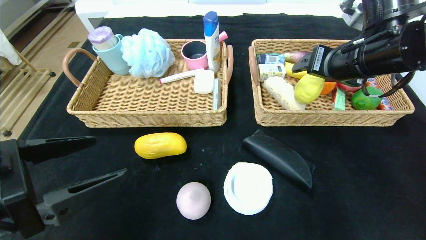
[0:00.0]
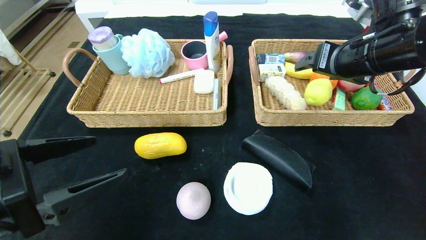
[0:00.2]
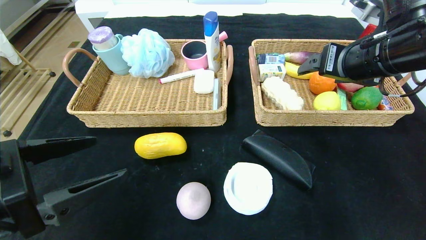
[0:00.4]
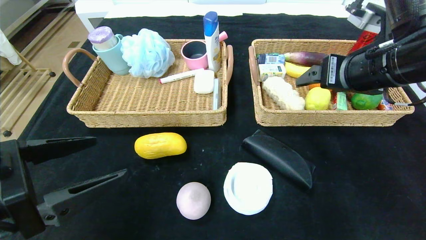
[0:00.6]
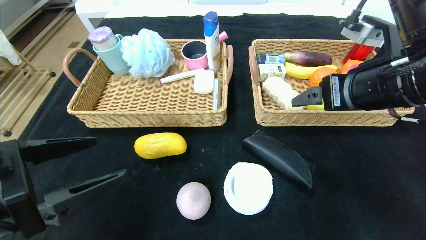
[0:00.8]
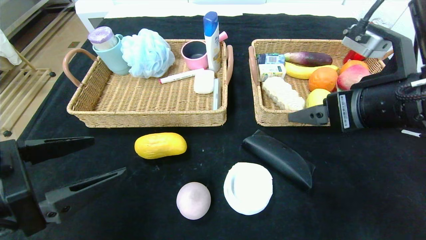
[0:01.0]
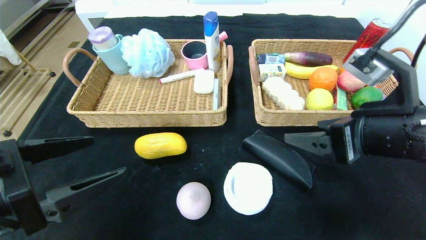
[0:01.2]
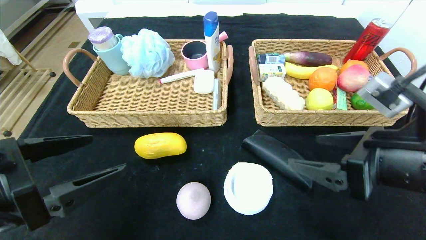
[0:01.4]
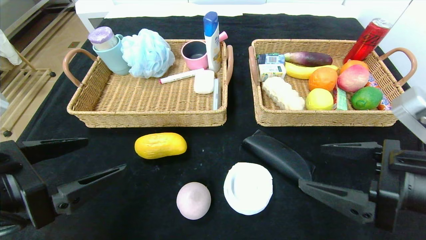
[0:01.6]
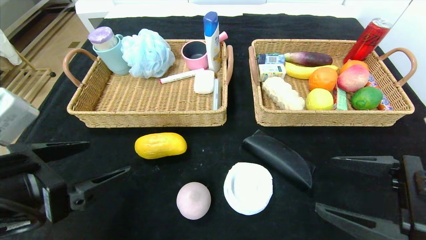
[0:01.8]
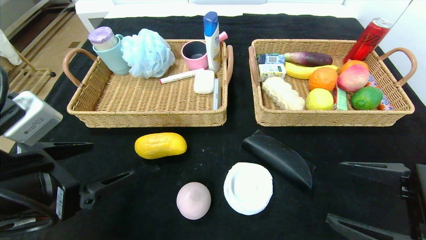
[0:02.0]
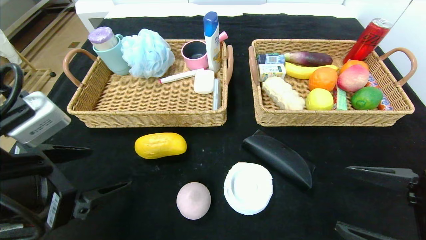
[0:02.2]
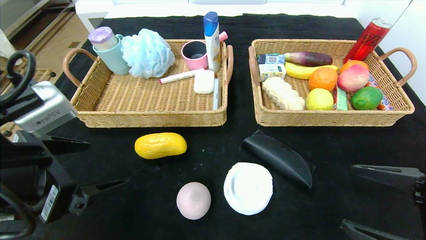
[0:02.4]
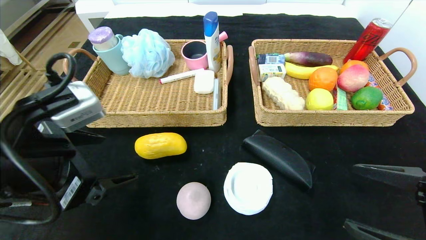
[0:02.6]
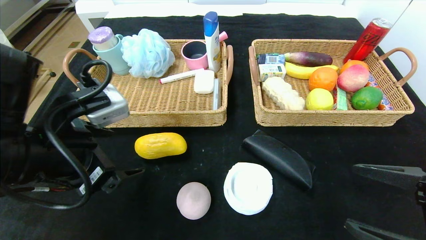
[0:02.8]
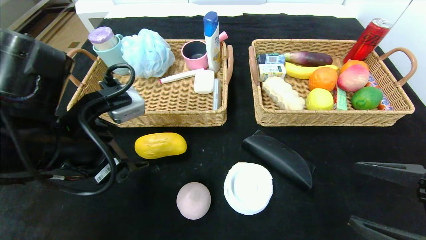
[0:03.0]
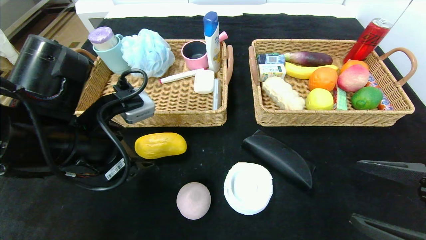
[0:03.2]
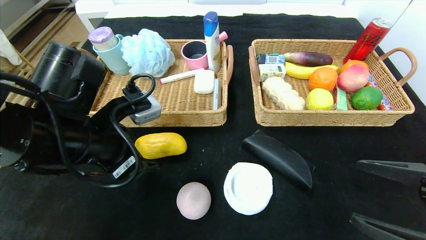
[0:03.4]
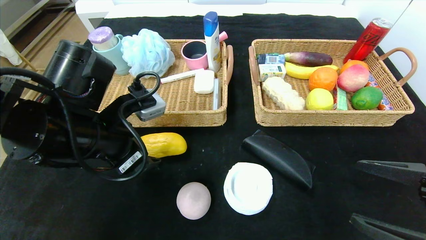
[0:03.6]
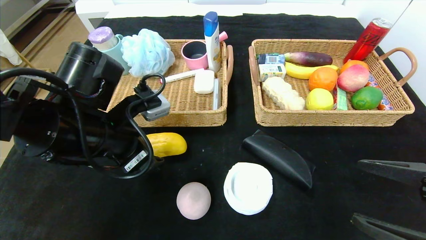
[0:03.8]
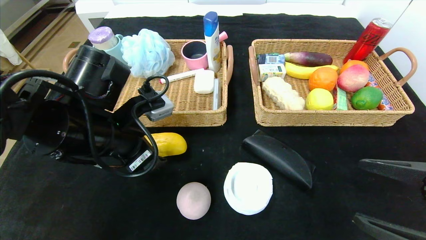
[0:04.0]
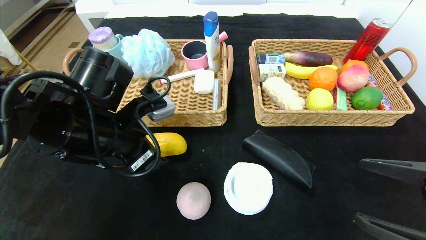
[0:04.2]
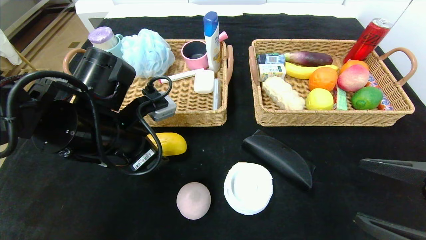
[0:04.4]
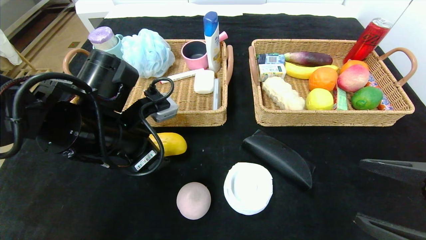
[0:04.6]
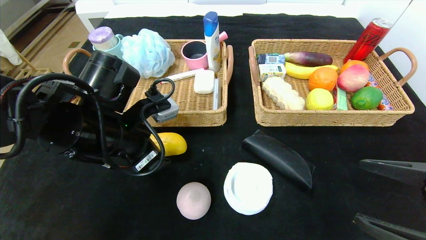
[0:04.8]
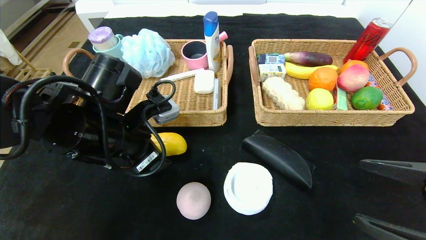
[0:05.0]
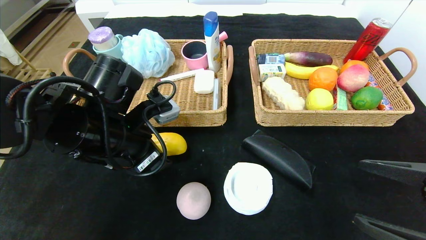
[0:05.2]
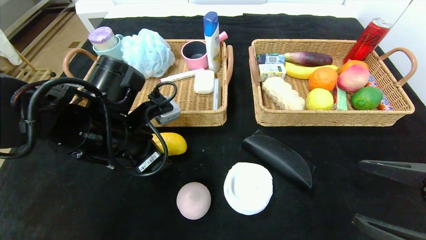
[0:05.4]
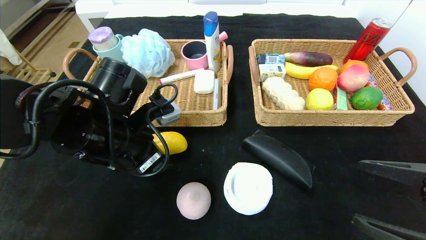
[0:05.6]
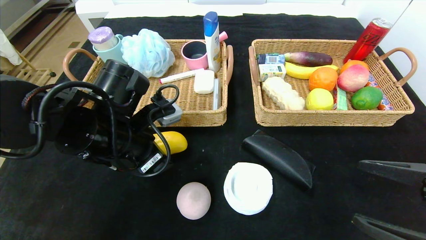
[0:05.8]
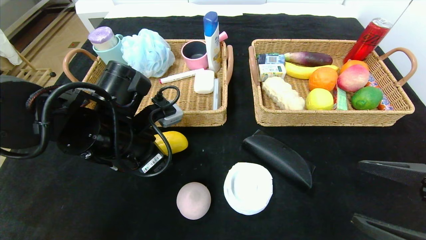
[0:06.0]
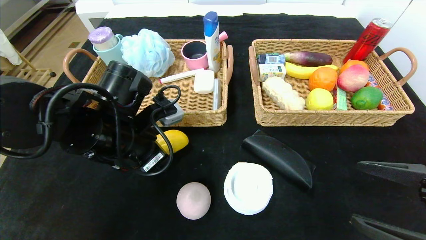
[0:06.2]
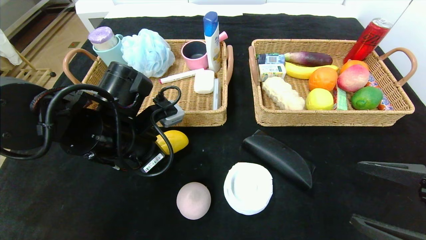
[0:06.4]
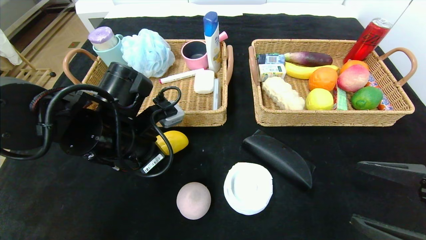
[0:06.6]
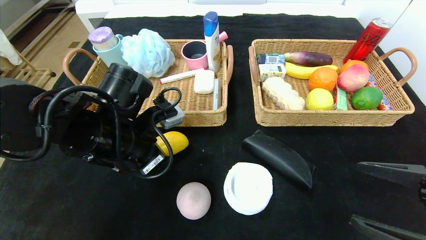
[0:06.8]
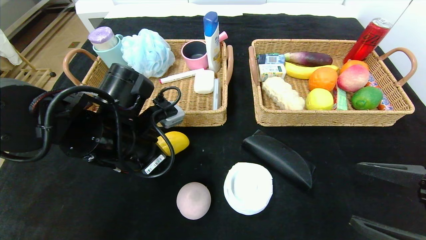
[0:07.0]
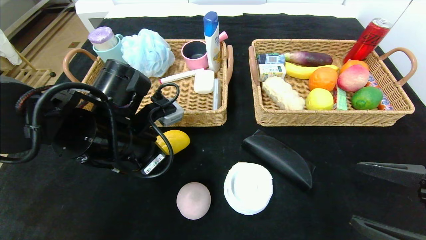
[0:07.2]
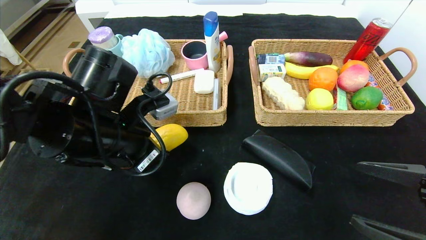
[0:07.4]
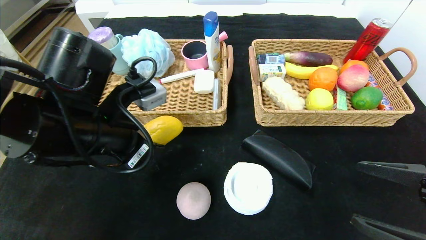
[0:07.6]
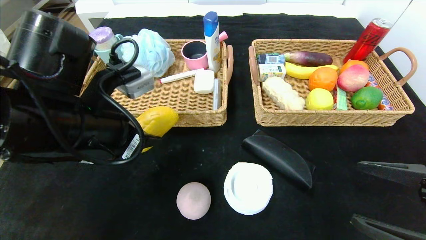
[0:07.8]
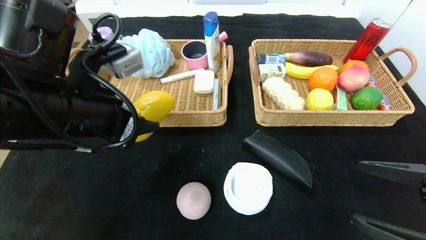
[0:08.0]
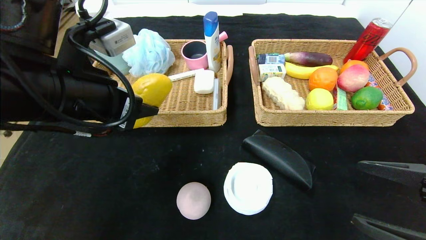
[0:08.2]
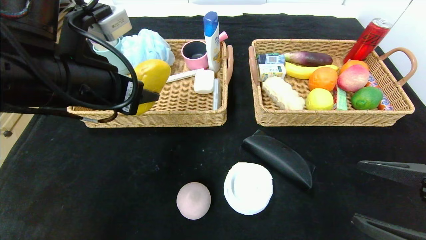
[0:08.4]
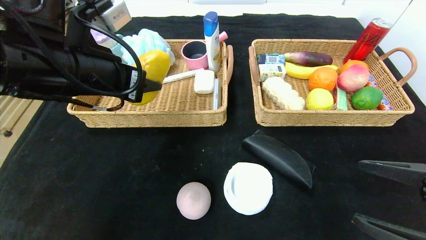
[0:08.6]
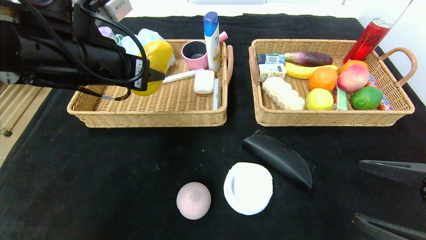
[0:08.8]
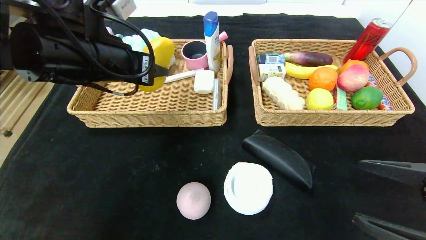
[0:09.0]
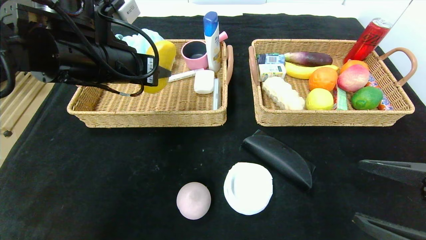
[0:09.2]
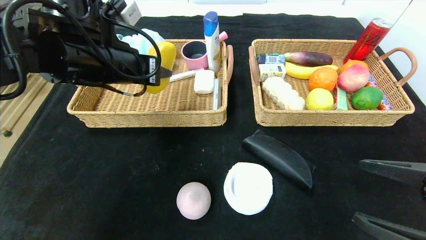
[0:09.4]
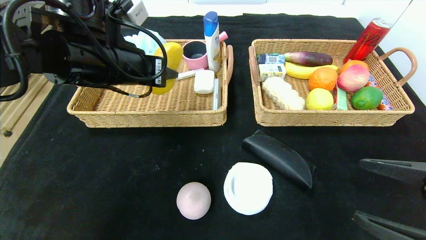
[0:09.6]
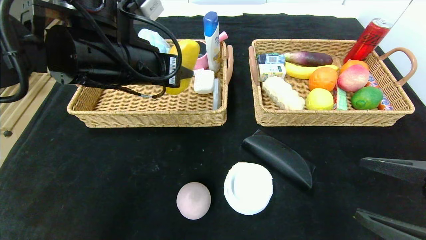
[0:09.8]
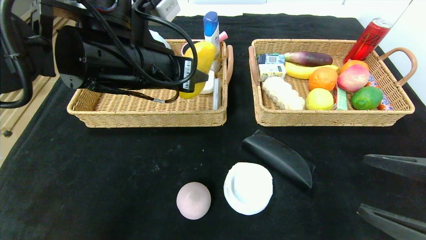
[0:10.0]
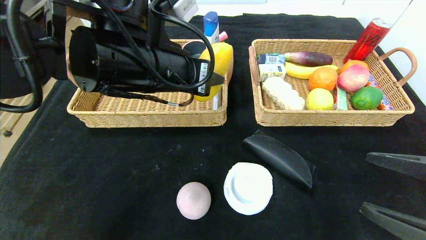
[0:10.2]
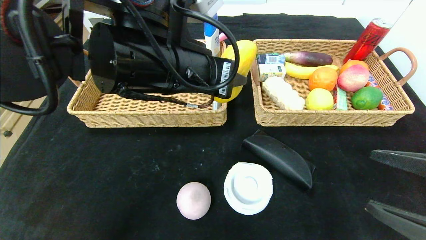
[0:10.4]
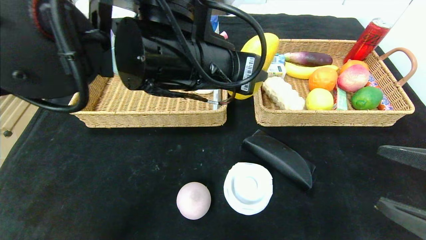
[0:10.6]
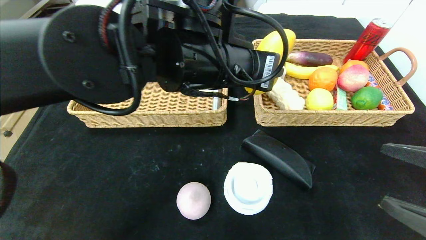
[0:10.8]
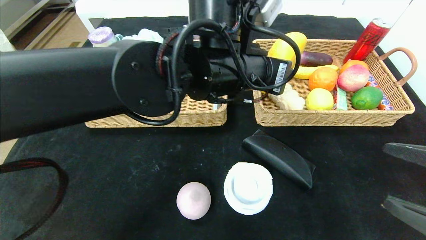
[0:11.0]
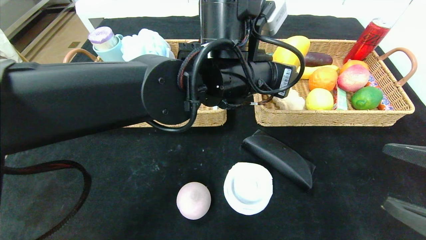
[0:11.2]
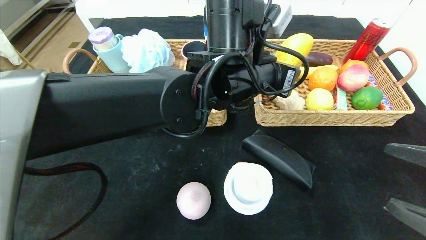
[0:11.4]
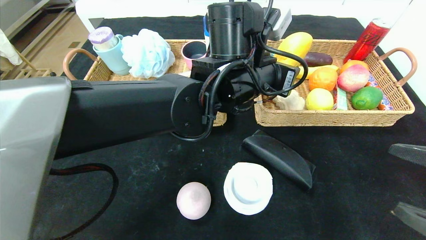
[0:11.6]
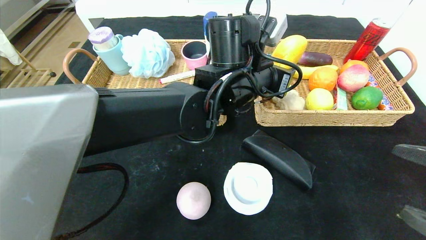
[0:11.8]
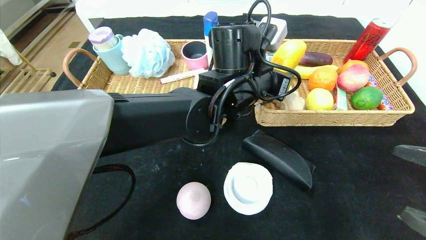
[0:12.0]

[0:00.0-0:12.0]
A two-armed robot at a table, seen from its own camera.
0:00.0 to 0:01.6: The right gripper shifts some 20 cm backward and downward.
0:01.6 to 0:03.0: The right gripper ends up approximately 5 cm from where it was. Meanwhile the left gripper moves forward and to the right, some 10 cm.
0:03.0 to 0:04.4: The left gripper changes place by approximately 5 cm.
0:04.4 to 0:06.0: The grippers stay close to where they were, moving slightly.
0:06.0 to 0:07.6: The left gripper shifts by some 5 cm, and closes.
0:07.6 to 0:09.0: The left gripper travels upward and forward by approximately 10 cm.
0:09.0 to 0:10.4: The left gripper shifts some 10 cm to the right.
0:10.4 to 0:12.0: The left gripper shifts roughly 15 cm to the right, forward and downward.

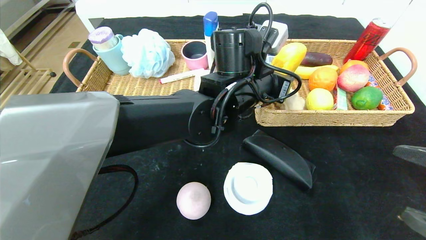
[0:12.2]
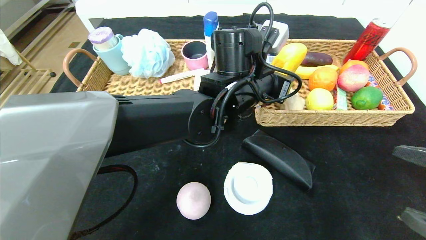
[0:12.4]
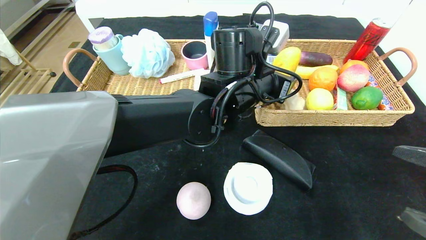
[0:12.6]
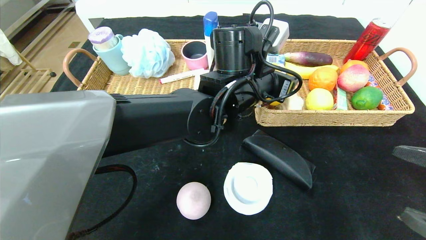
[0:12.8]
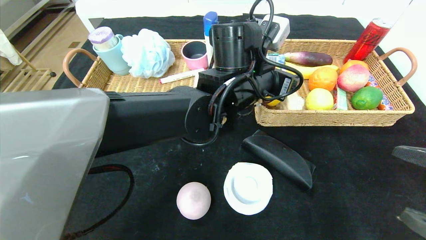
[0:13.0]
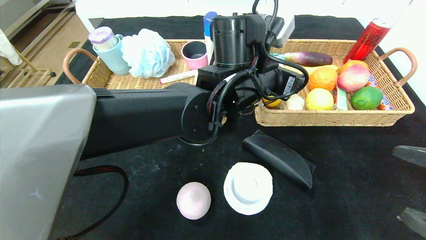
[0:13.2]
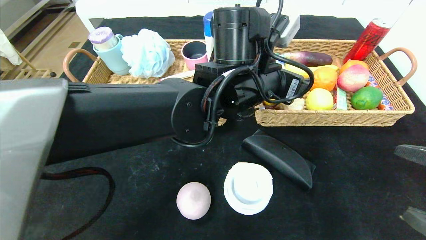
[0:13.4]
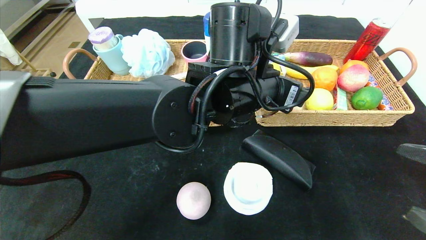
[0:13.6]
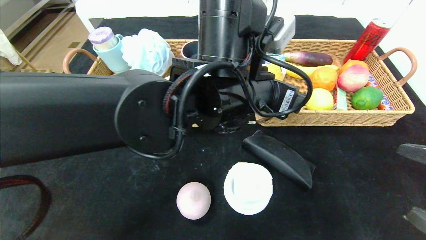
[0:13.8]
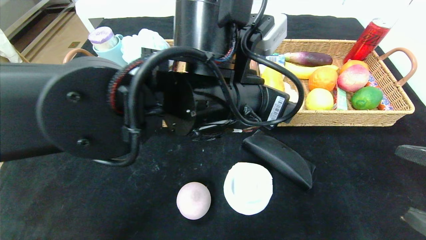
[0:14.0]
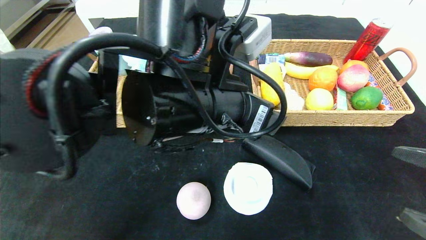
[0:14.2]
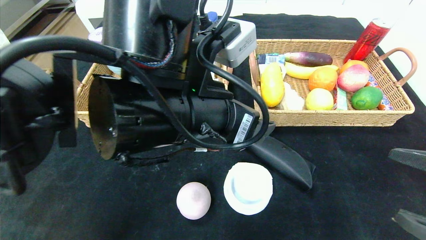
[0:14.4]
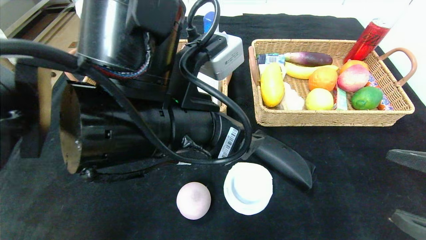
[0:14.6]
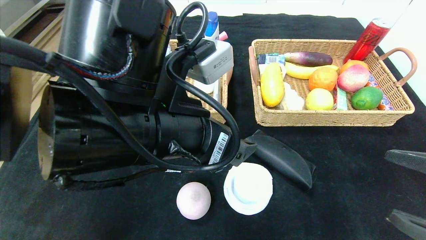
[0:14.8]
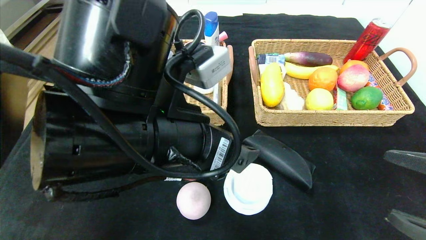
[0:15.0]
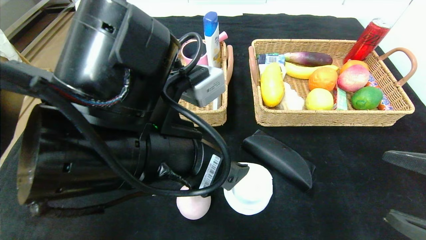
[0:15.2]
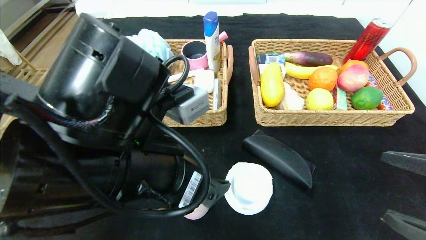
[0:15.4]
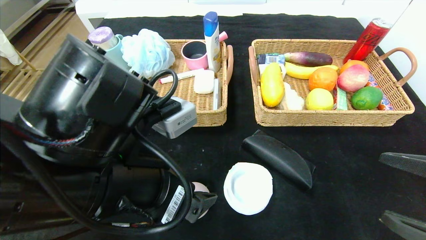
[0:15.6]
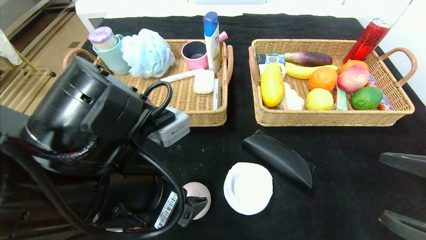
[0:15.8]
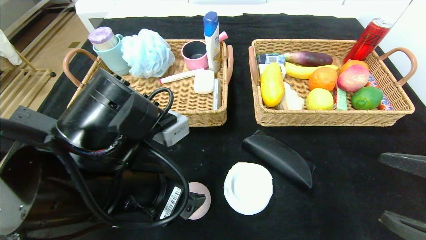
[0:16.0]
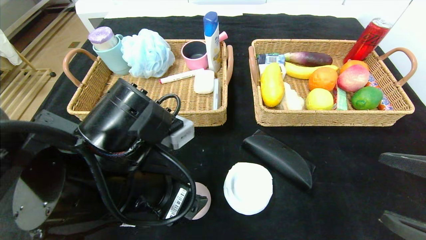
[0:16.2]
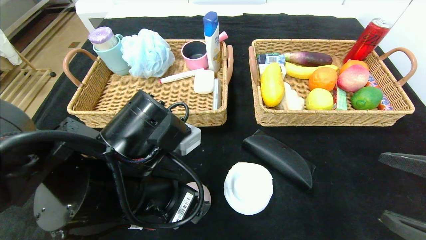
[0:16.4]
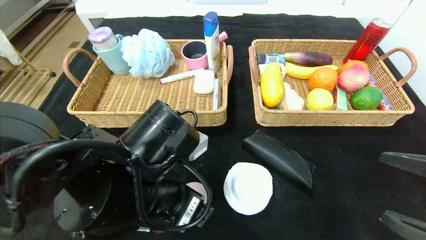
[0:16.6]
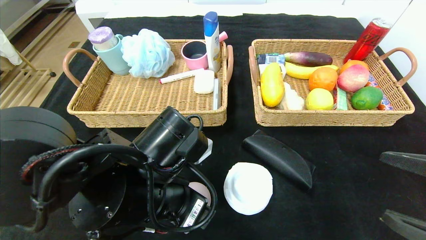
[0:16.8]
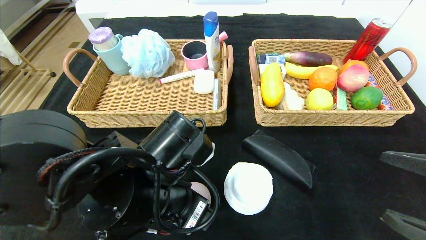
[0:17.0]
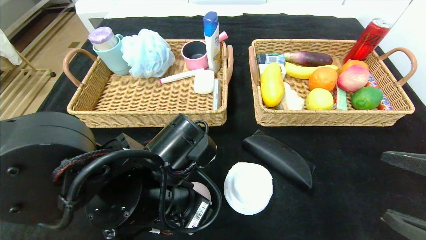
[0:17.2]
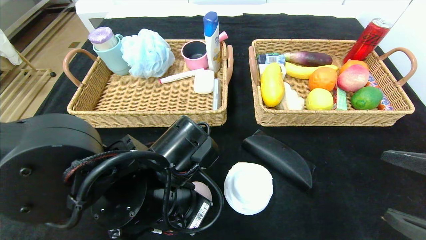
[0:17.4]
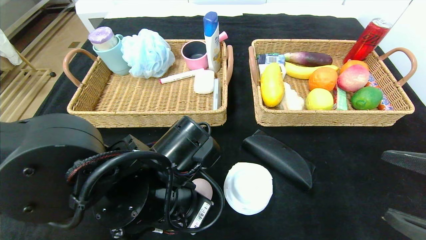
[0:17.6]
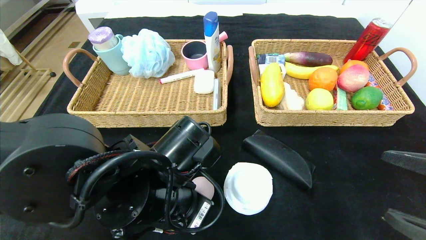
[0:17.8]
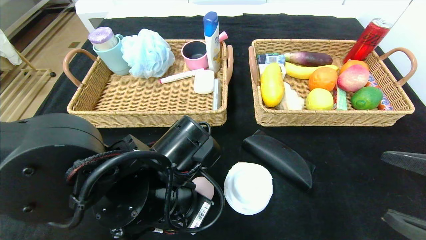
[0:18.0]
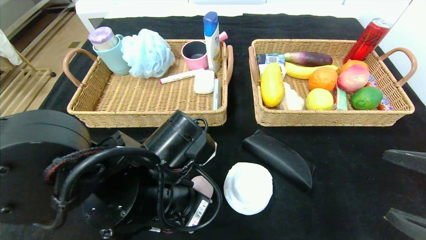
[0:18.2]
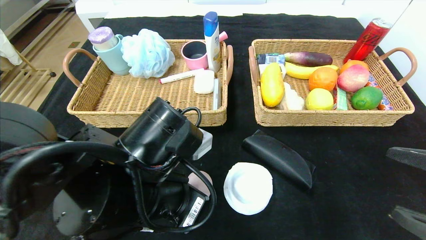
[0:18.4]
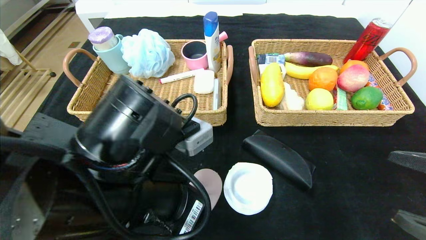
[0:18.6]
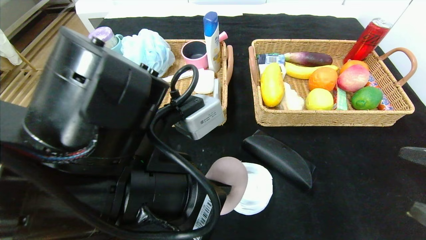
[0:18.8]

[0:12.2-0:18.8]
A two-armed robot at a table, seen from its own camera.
0:12.2 to 0:13.8: The left gripper travels backward by roughly 10 cm, and opens.
0:13.8 to 0:15.4: The left gripper is displaced to the left and backward by approximately 15 cm.
0:15.4 to 0:17.2: The left gripper moves downward, about 5 cm.
0:17.2 to 0:18.8: The left gripper shifts roughly 5 cm upward, and closes up.
